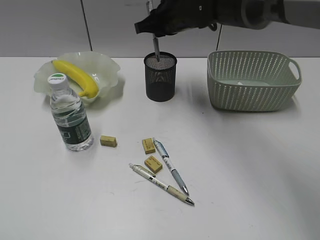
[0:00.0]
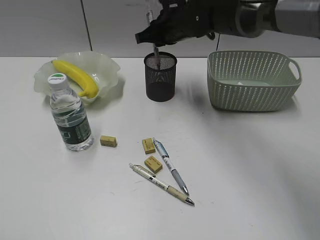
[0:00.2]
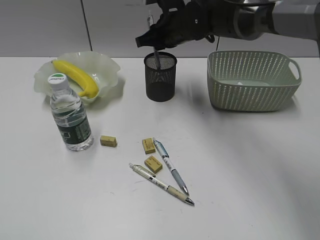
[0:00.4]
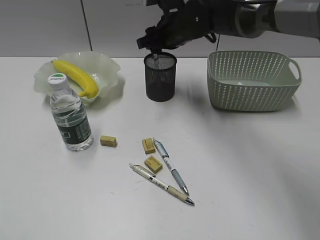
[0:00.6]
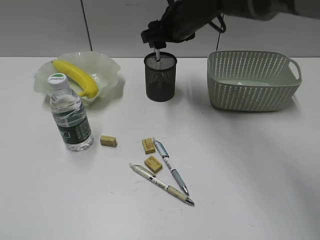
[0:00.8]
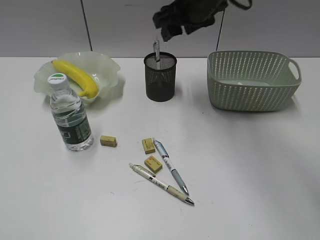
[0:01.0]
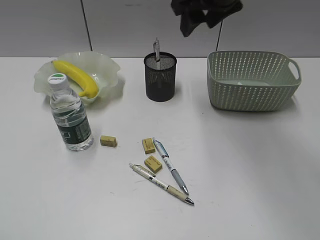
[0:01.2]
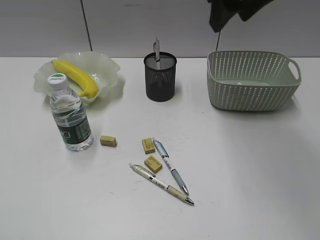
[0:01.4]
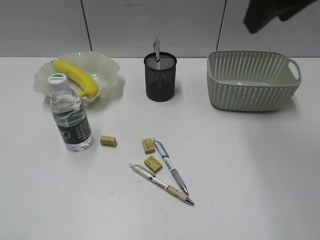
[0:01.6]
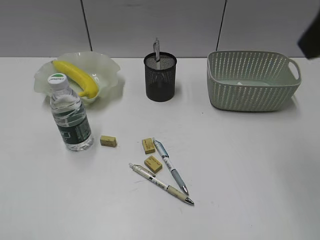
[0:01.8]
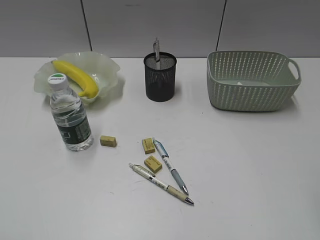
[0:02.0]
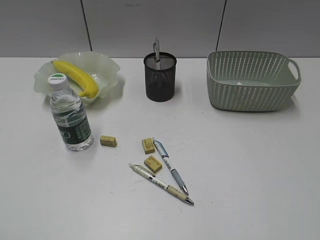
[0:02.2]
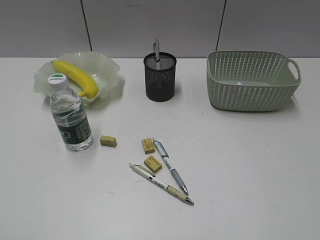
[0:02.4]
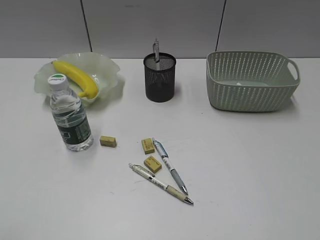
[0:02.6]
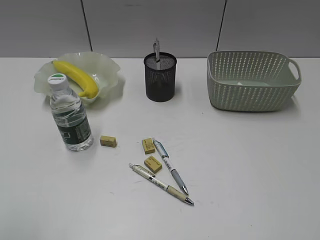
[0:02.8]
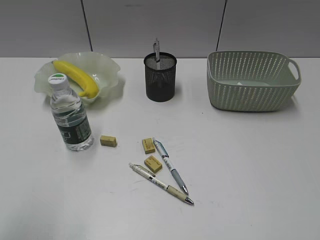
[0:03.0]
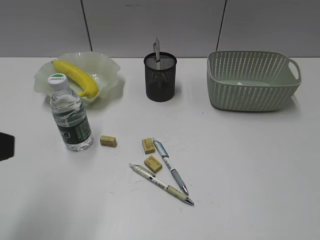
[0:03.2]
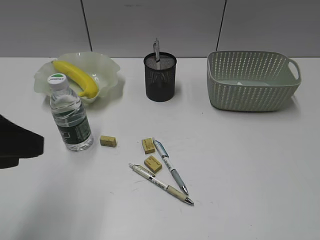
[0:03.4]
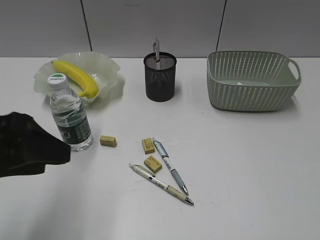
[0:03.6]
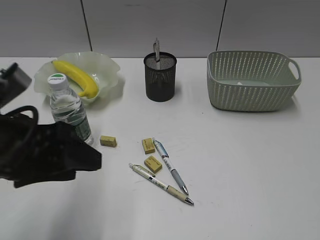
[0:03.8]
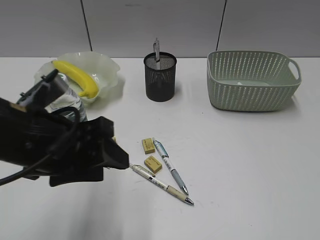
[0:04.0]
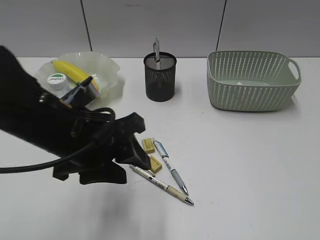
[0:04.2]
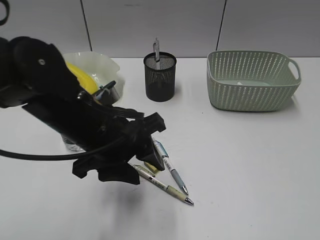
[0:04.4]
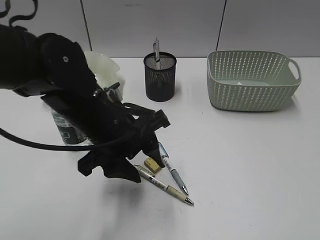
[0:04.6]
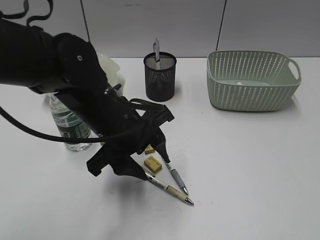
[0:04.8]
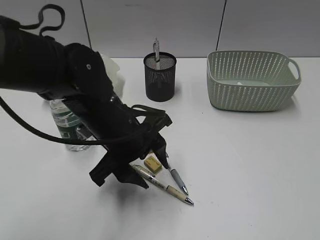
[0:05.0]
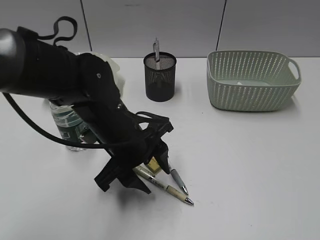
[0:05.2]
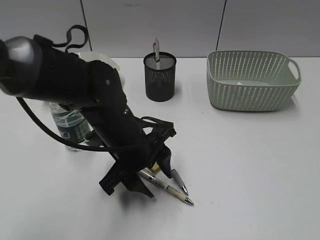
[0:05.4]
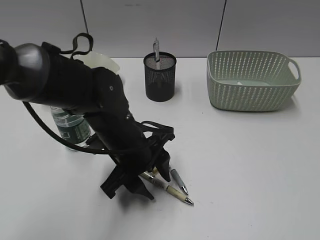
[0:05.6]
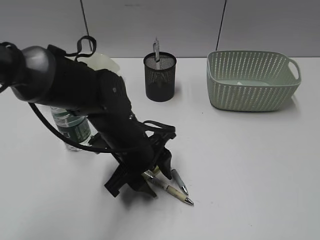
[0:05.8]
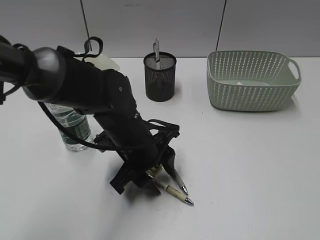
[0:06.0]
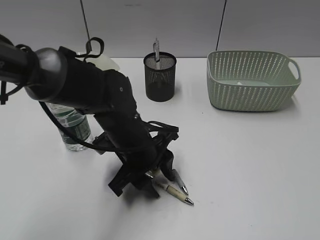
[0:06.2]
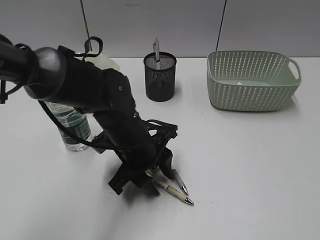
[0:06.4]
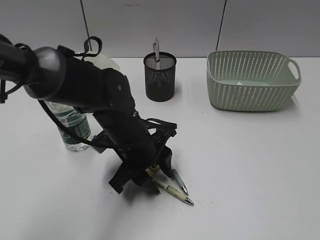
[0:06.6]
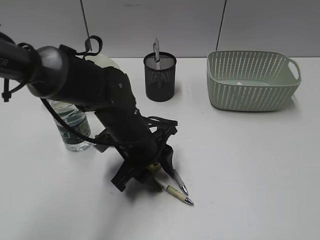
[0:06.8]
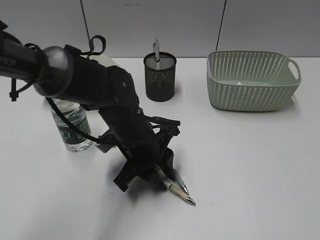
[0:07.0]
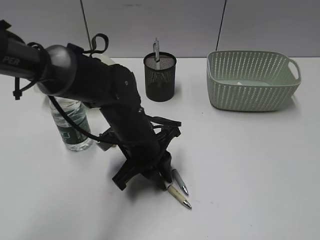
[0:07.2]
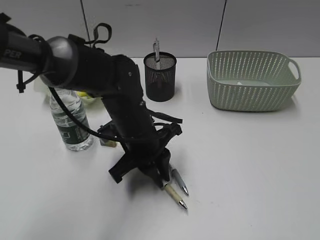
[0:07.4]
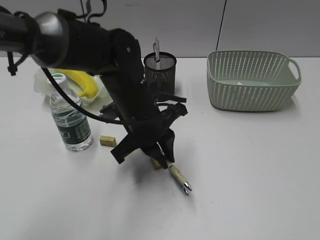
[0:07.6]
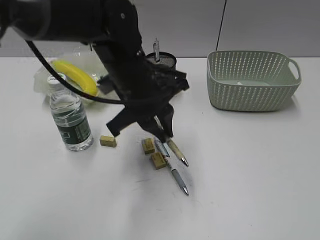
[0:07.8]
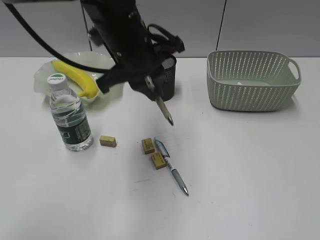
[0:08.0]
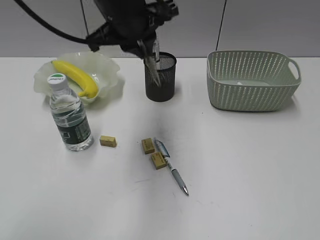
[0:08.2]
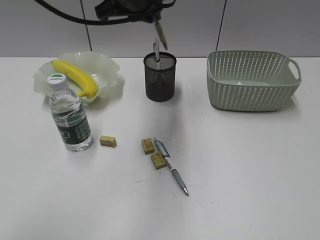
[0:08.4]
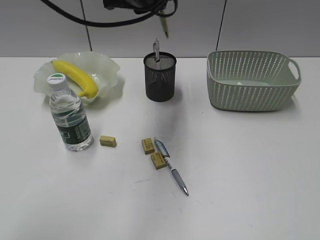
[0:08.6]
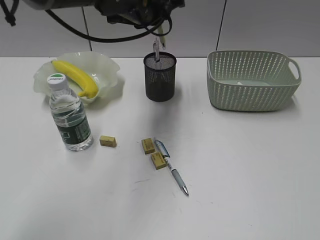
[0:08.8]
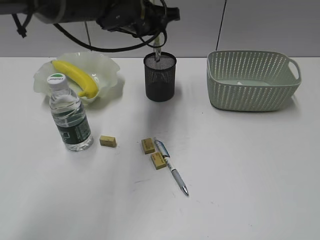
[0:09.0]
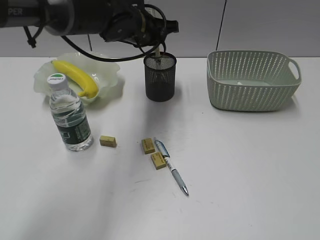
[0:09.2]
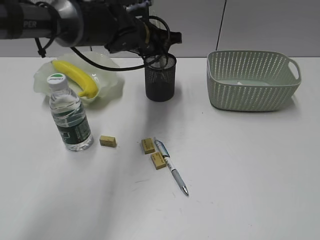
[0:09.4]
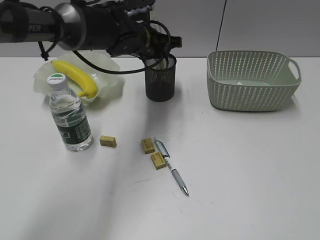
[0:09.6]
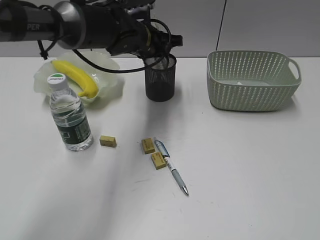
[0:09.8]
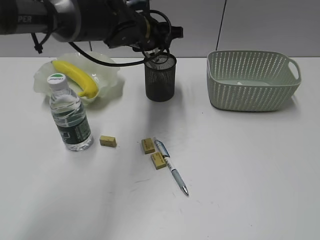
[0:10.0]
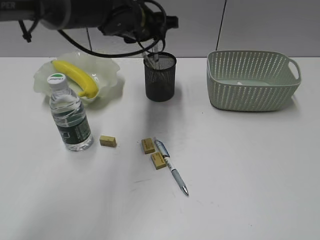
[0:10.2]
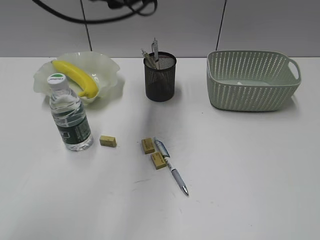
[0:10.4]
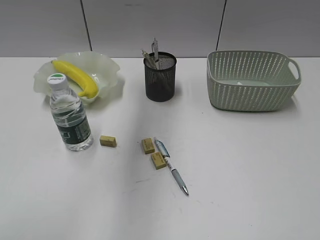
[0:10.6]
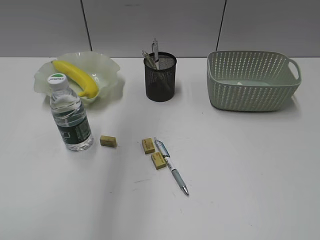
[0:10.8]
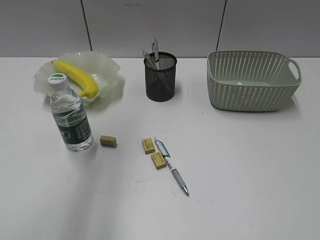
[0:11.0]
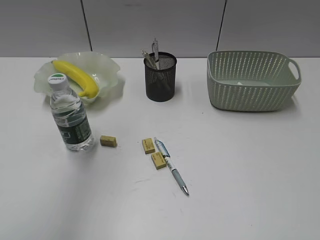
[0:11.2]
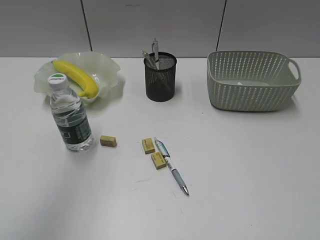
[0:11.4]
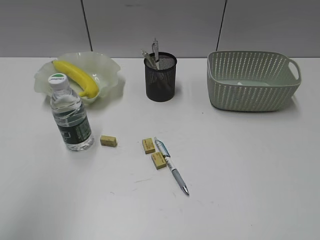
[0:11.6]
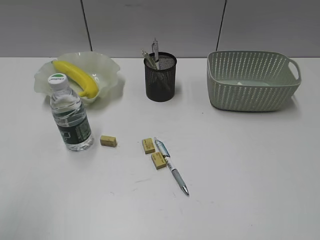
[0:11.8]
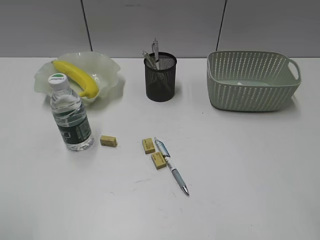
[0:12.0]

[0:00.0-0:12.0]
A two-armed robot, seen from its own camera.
Step, 0:01.0 to 0:07.2: Grasp the yellow pen with left gripper.
Step, 0:07.4 to 0:10.0: Place the yellow pen in pen holder with left gripper.
0:00.0 to 0:01.6: The right gripper heads backward, upward and to the right, covering roughly 25 cm, and opens its fingers.
0:01.6 to 0:03.0: The right gripper shifts about 35 cm backward and to the right. The left gripper moves forward and to the right, some 10 cm.
0:03.0 to 0:04.4: The left gripper shifts about 25 cm to the right, forward and downward.
0:04.4 to 0:06.0: The left gripper goes about 10 cm downward.
0:06.0 to 0:07.6: The left gripper closes its fingers.
0:07.6 to 0:09.0: The left gripper goes some 20 cm forward and upward.
0:09.0 to 0:10.4: The left gripper reaches some 5 cm downward, then returns, and opens.
0:10.4 to 0:12.0: The left gripper moves backward and to the left, roughly 50 cm; the right gripper travels forward by approximately 5 cm.

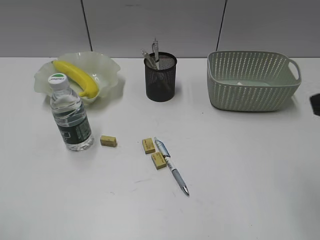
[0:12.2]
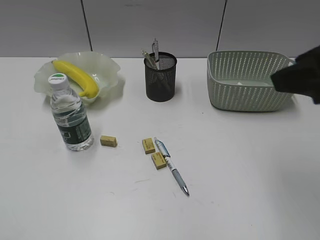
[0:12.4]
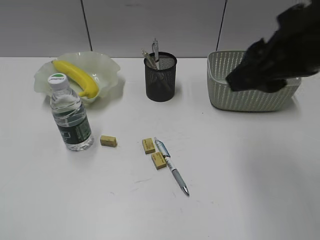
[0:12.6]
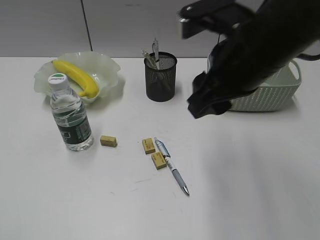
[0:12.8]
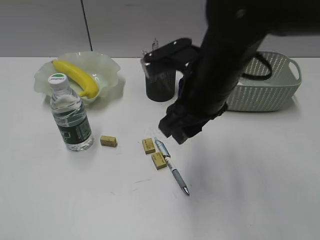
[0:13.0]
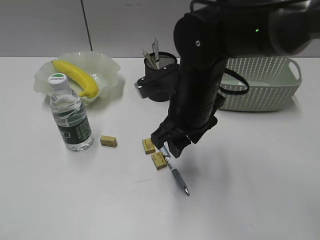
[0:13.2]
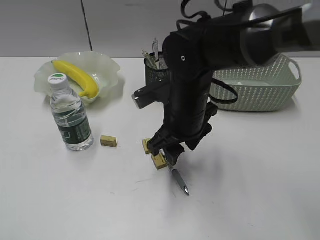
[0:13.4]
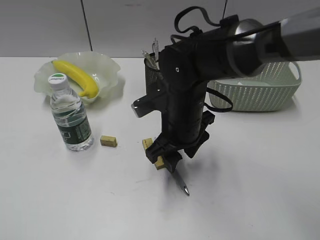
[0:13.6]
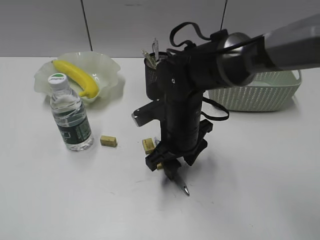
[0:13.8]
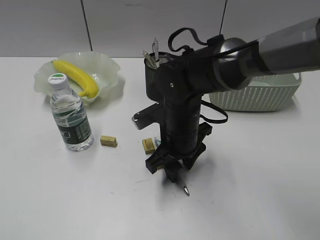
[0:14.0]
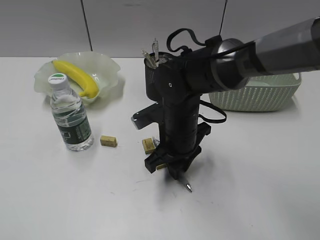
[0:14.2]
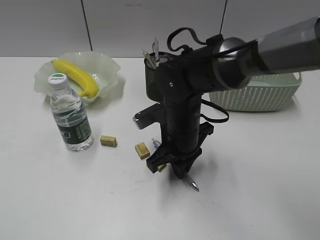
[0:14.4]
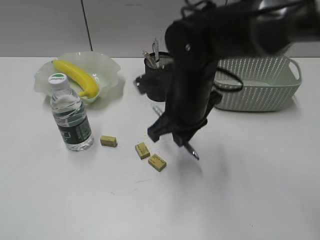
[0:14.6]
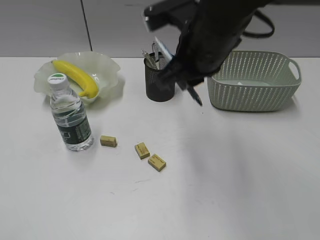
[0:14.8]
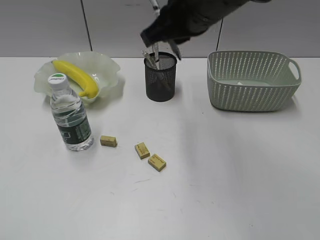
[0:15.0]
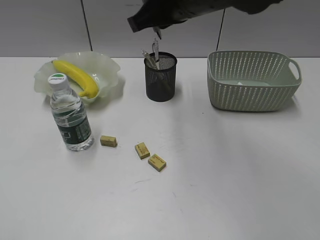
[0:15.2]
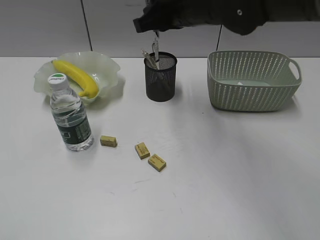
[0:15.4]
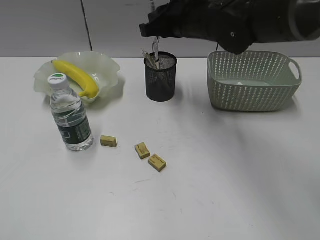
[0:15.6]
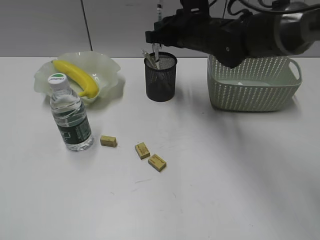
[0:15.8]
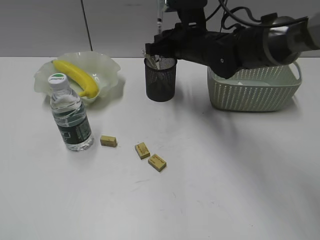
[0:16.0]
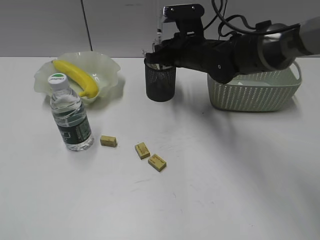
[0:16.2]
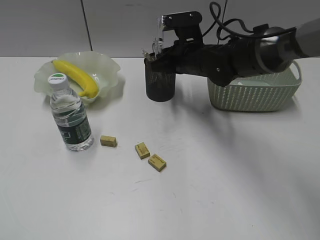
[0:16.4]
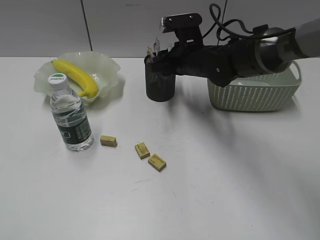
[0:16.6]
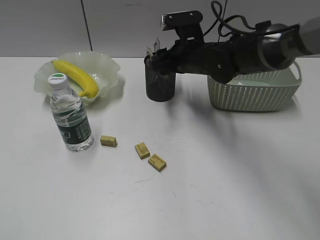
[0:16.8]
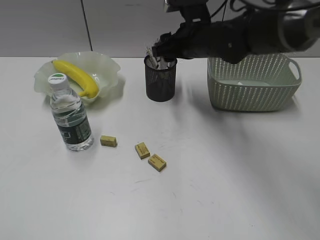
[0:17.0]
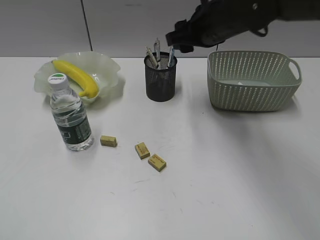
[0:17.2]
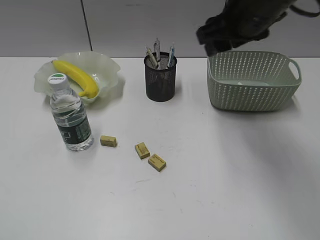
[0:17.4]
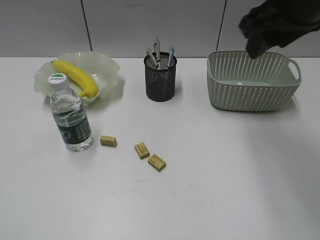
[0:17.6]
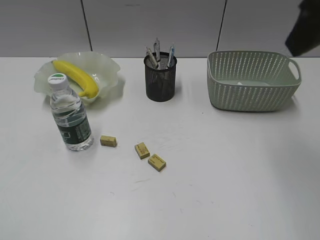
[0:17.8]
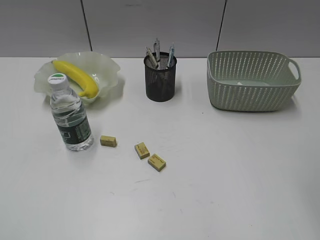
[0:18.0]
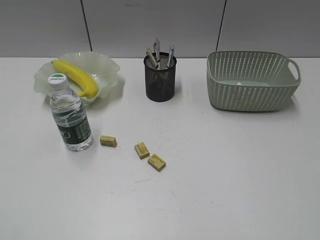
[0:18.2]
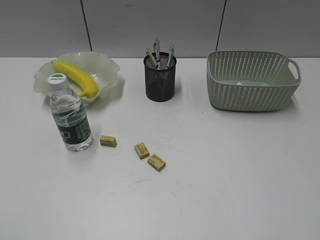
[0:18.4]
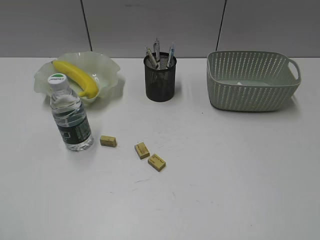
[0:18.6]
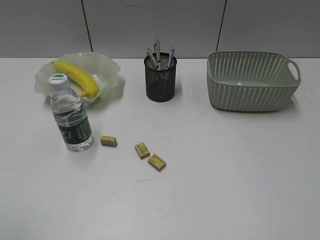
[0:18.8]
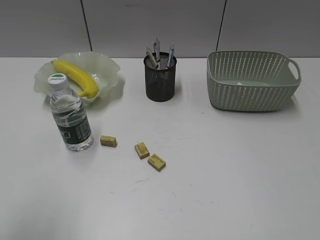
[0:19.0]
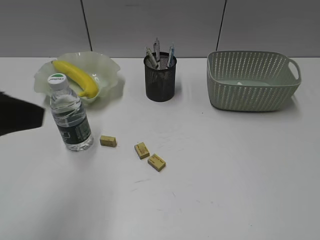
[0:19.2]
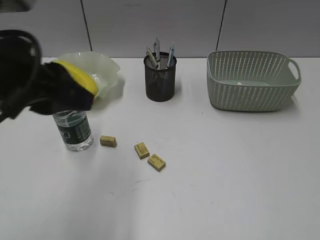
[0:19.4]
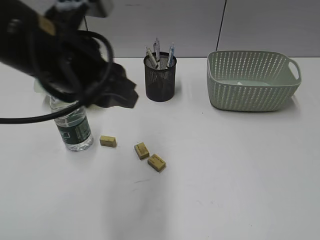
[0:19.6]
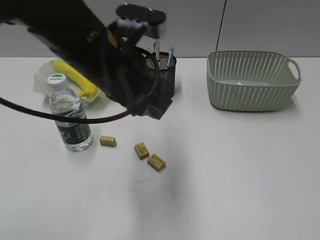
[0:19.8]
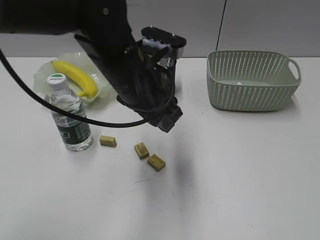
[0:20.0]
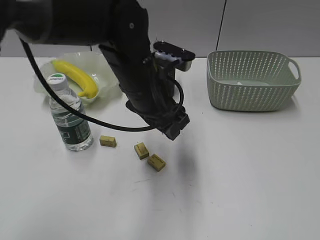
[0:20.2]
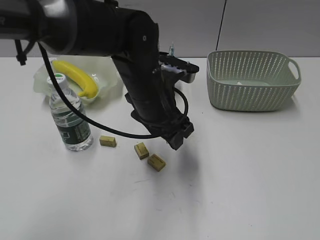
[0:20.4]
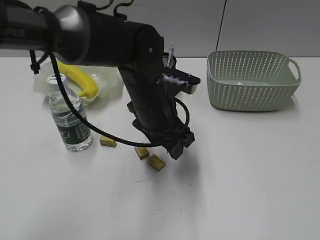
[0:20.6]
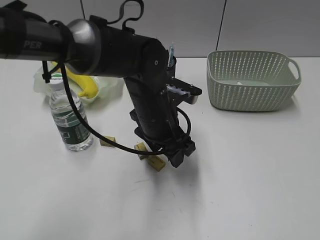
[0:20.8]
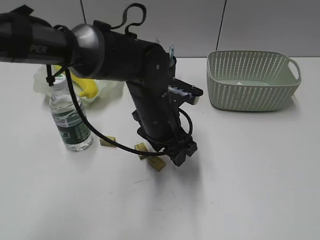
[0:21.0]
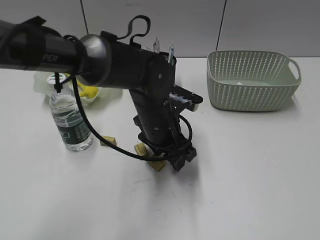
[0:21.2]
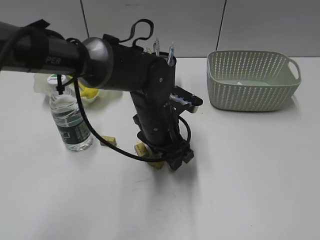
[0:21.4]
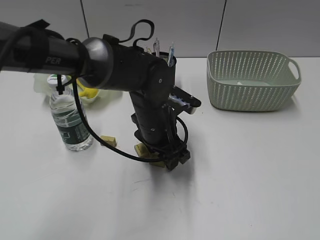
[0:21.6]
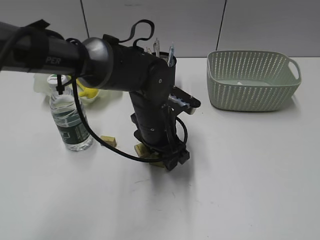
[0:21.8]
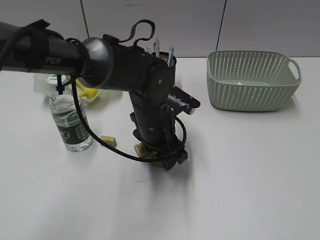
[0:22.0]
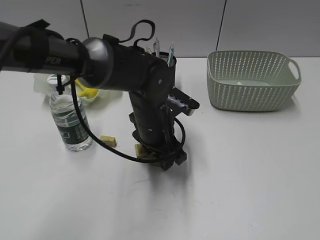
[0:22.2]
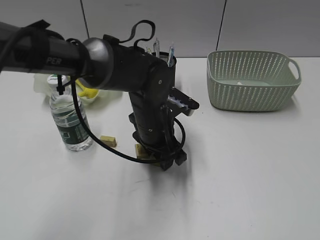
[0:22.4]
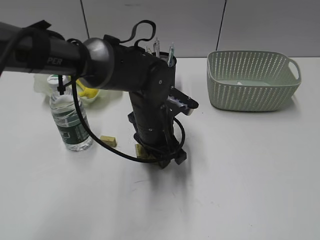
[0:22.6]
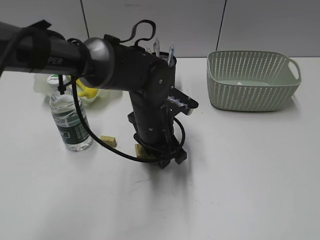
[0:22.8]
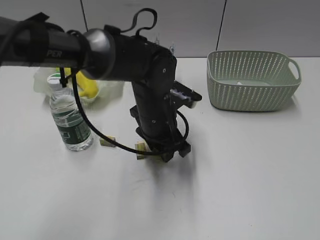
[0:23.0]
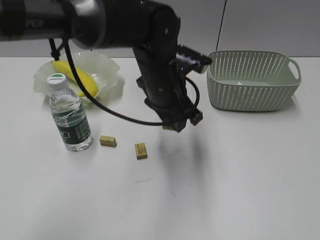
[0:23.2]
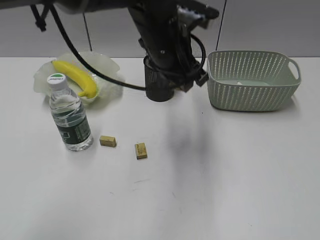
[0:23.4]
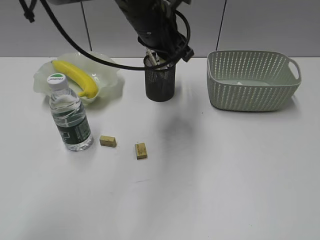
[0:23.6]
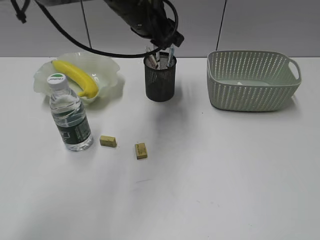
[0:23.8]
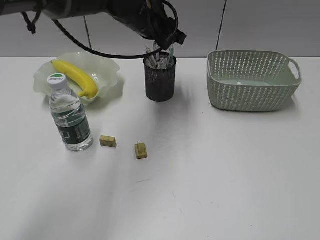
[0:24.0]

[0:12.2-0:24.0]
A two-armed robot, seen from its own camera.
Step, 0:12.2 to 0:14.2: Grasp the blue pen with right gripper.
Step, 0:14.4 to 0:16.8: Place the blue pen in pen holder with right gripper.
Step, 0:17.0 to 0:22.6: Grasp the eraser with left gripper.
0:12.2 to 0:13.6: The right gripper is displaced to the left, downward and forward by roughly 35 cm.
0:13.6 to 0:15.2: The right gripper goes approximately 15 cm upward, and closes.
0:15.2 to 0:16.6: The right gripper is displaced downward and forward by some 20 cm, and opens its fingers.
0:16.6 to 0:18.2: The right gripper shifts approximately 40 cm backward, upward and to the right.
0:18.2 to 0:19.6: The left gripper is displaced forward and to the right by approximately 30 cm. The right gripper moves backward, downward and to the right, some 15 cm.
0:19.6 to 0:21.0: The left gripper travels downward, to the right and forward by some 20 cm, and opens its fingers.
0:21.0 to 0:22.6: The grippers stay close to where they were, moving slightly.
0:22.6 to 0:24.0: The left gripper shifts approximately 20 cm upward and forward.
